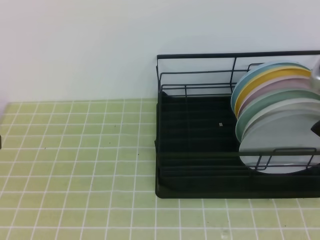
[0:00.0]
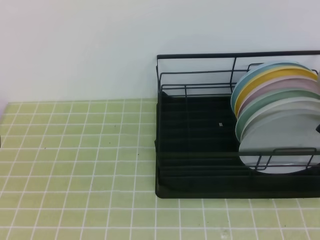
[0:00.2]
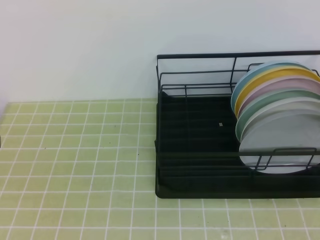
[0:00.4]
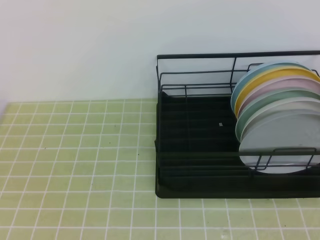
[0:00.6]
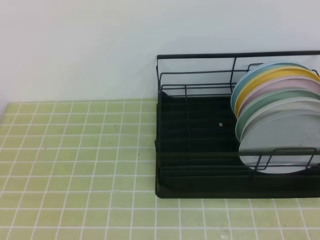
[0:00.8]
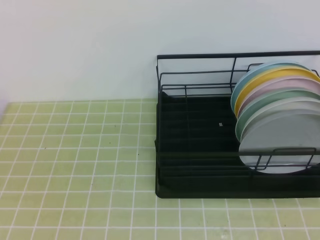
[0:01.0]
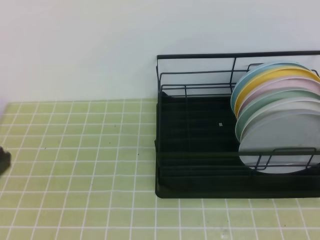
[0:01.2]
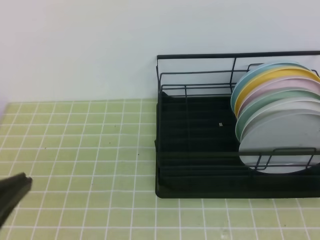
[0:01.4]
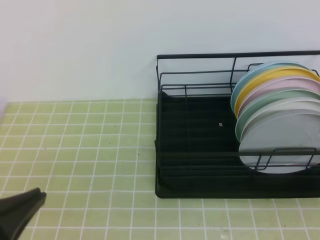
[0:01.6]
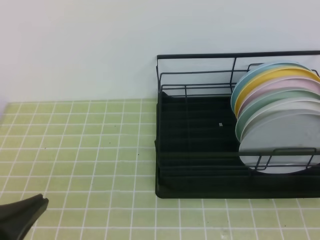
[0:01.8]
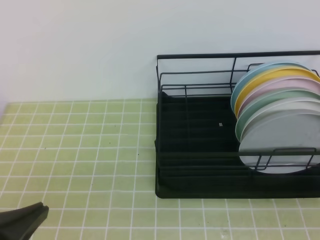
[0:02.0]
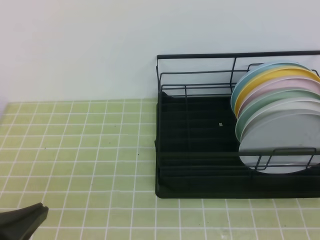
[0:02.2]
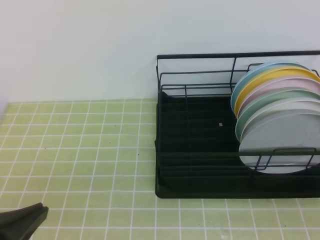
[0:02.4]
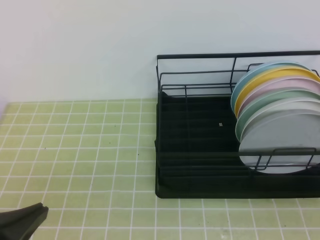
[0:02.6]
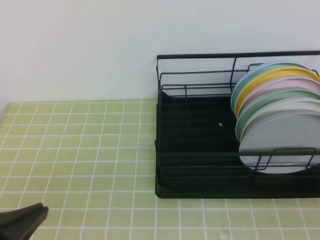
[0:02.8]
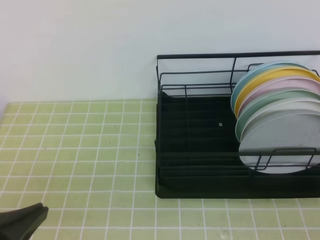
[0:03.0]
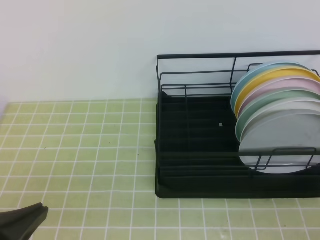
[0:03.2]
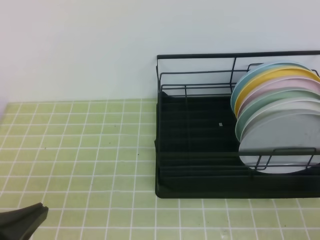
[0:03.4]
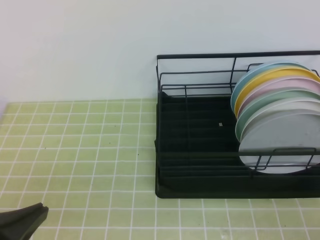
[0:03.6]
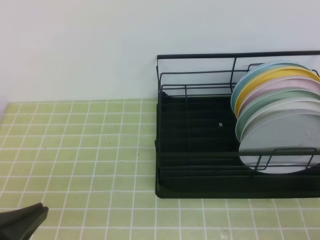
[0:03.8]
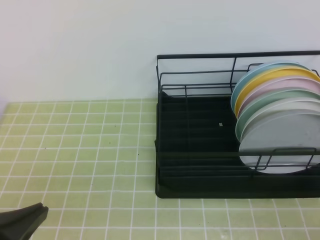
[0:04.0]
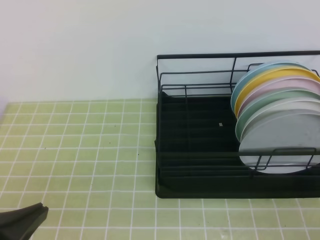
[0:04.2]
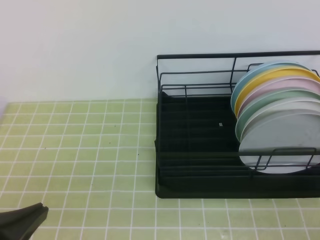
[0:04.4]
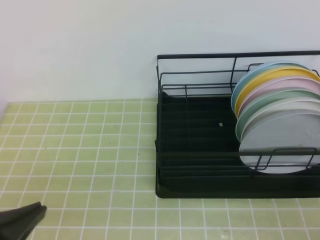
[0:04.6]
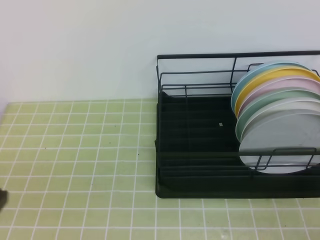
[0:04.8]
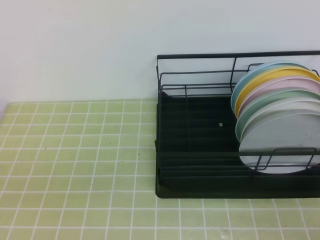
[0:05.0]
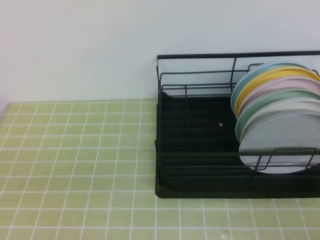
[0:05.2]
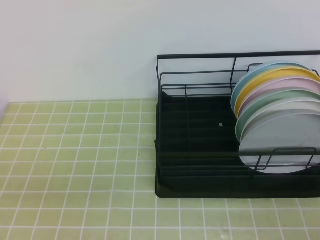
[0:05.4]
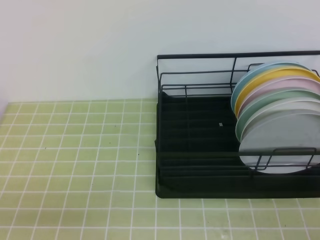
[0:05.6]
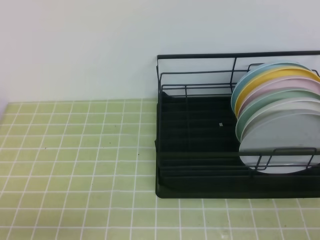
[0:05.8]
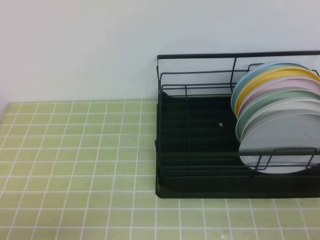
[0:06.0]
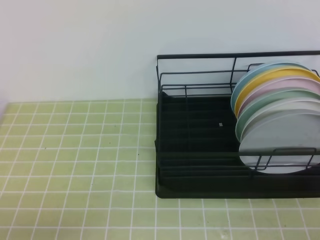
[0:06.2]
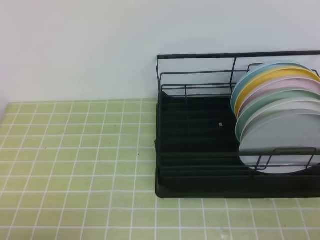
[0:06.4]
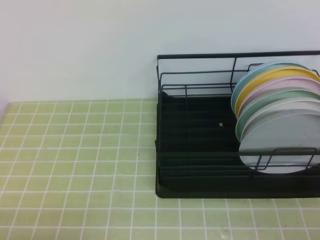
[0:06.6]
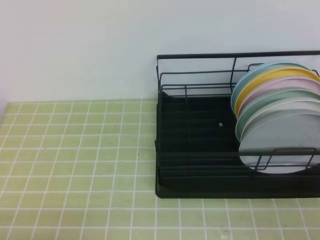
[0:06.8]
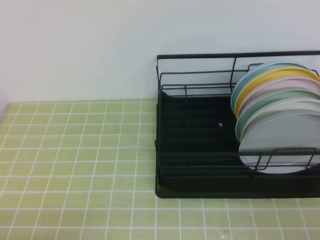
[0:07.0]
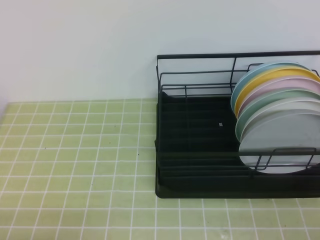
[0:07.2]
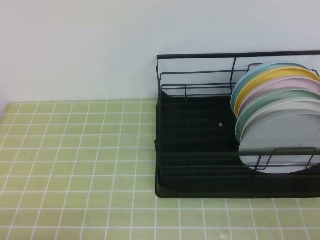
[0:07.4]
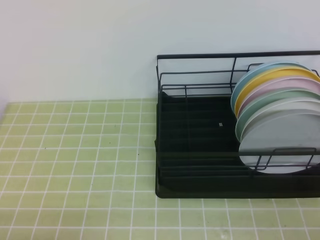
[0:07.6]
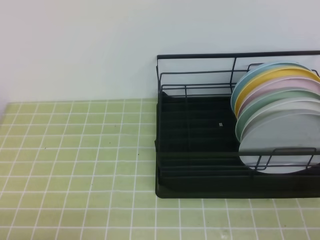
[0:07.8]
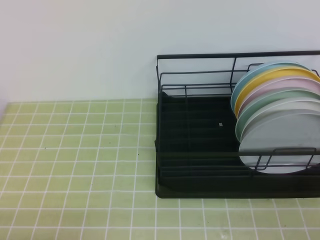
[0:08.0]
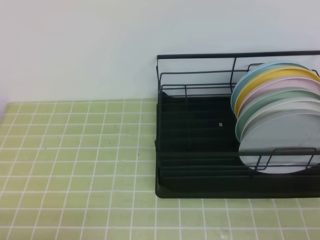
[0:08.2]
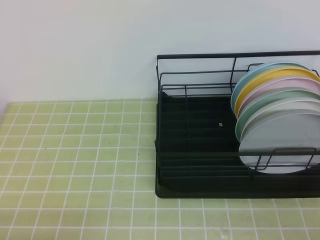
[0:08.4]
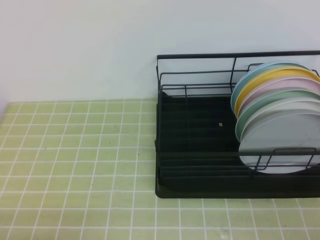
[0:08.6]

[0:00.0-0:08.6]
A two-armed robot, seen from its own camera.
0:00.0 to 0:01.4: The right gripper is displaced backward by approximately 25 cm, and closes, while the left gripper goes about 5 cm downward.
0:01.4 to 0:02.8: The left gripper shifts approximately 5 cm downward.
0:04.4 to 0:05.8: The left gripper heads downward, covering about 5 cm.
0:07.2 to 0:08.6: Neither gripper changes place.
